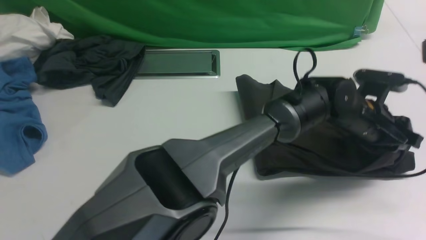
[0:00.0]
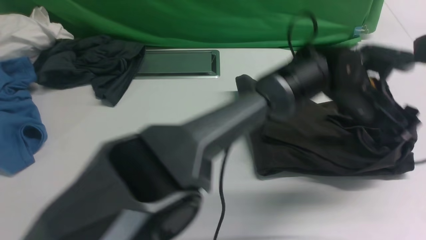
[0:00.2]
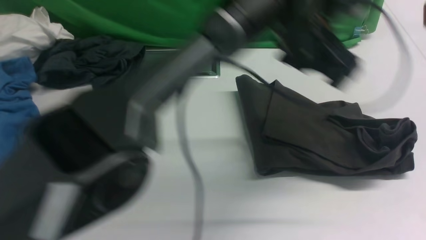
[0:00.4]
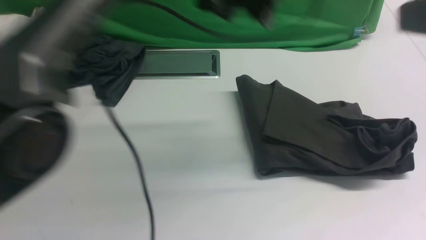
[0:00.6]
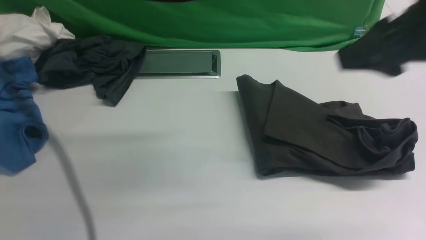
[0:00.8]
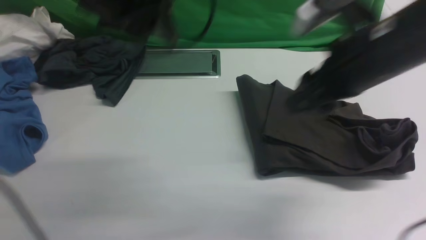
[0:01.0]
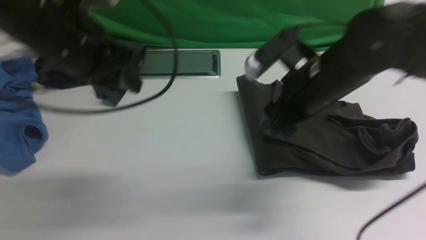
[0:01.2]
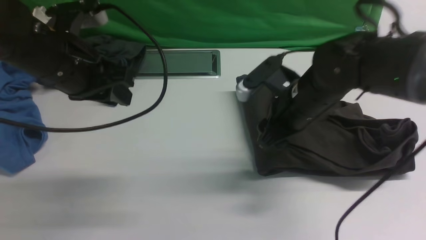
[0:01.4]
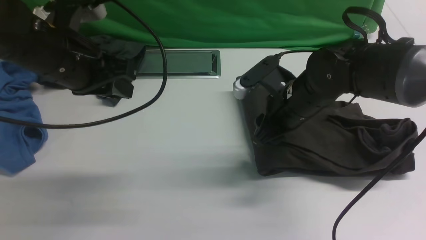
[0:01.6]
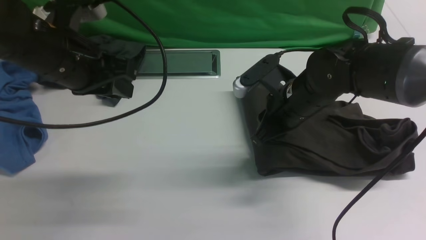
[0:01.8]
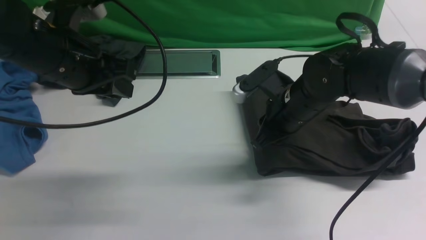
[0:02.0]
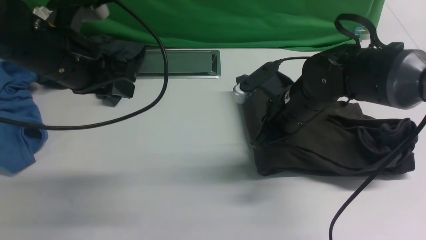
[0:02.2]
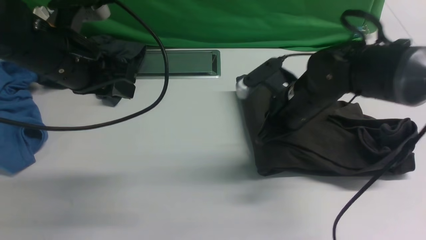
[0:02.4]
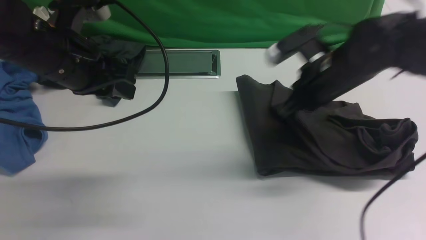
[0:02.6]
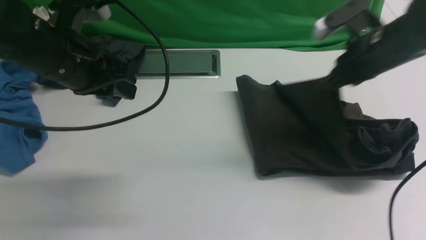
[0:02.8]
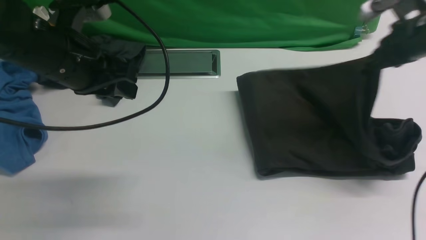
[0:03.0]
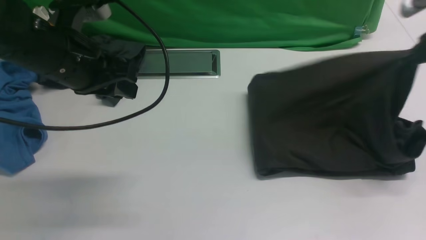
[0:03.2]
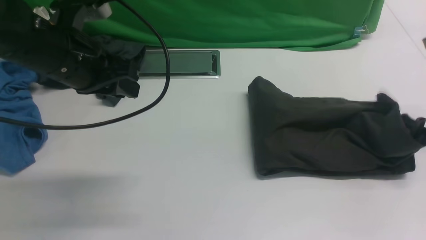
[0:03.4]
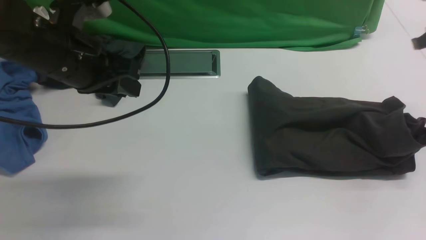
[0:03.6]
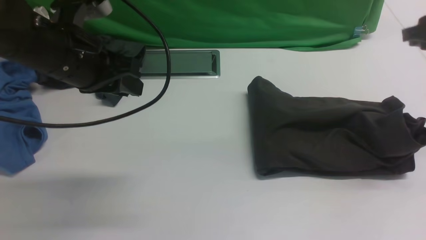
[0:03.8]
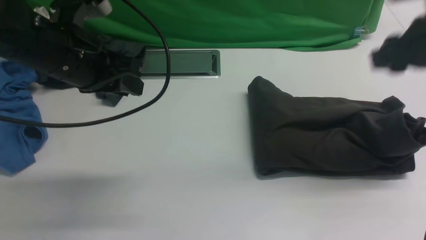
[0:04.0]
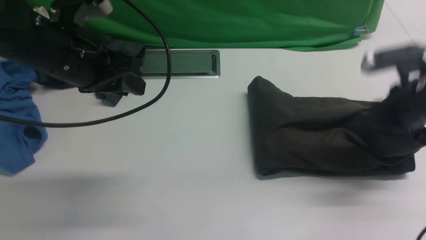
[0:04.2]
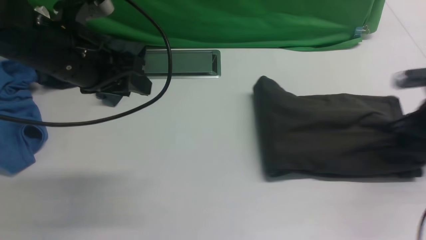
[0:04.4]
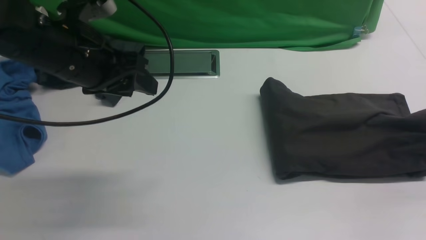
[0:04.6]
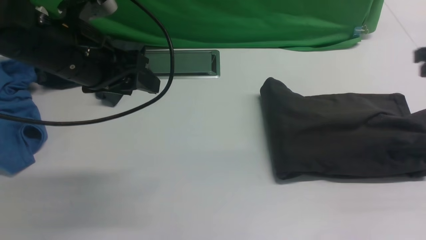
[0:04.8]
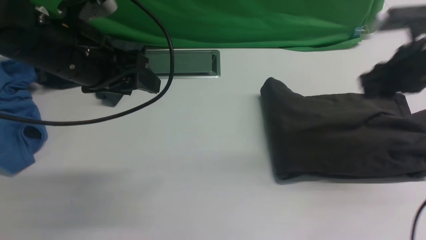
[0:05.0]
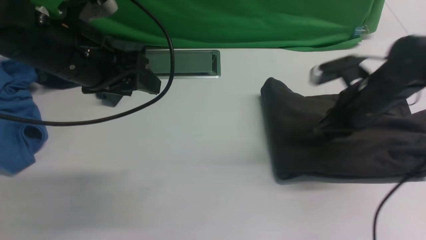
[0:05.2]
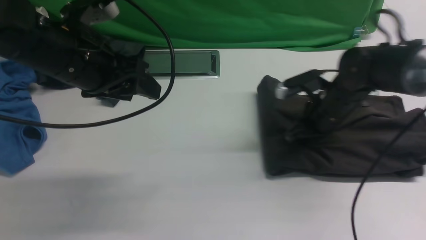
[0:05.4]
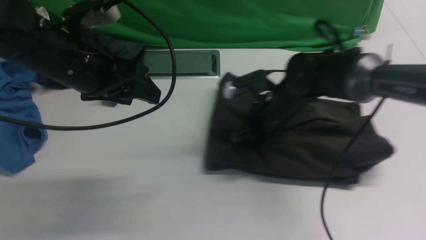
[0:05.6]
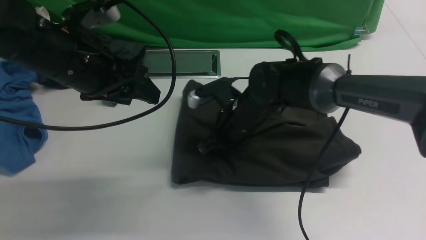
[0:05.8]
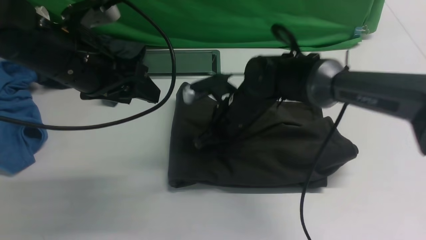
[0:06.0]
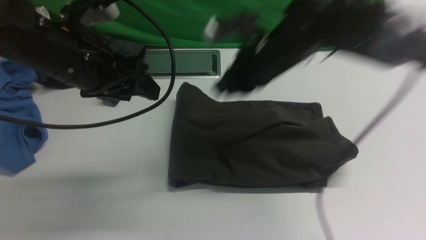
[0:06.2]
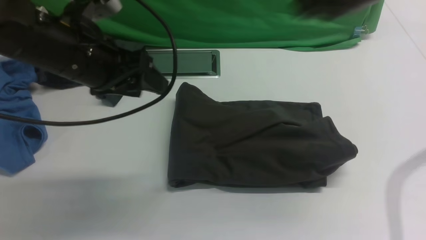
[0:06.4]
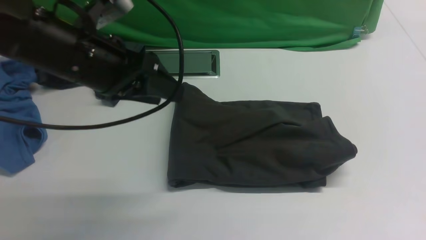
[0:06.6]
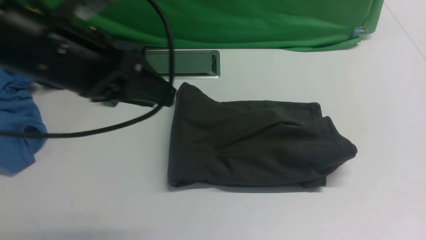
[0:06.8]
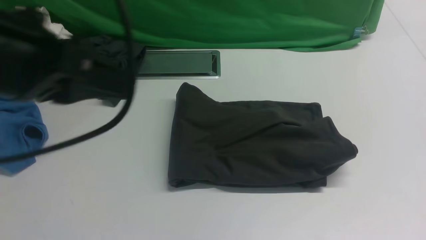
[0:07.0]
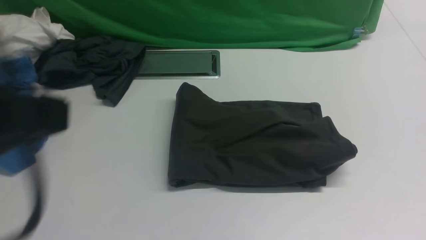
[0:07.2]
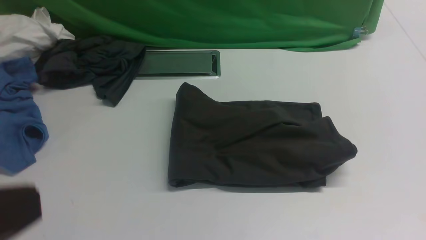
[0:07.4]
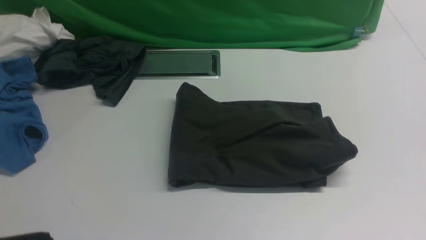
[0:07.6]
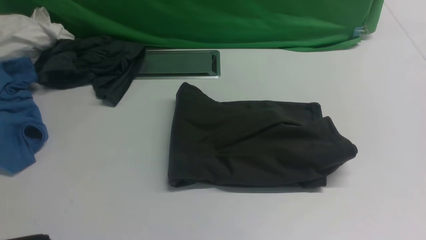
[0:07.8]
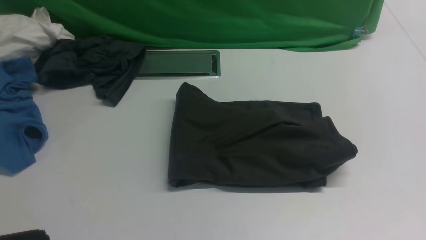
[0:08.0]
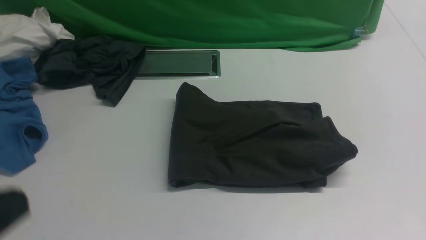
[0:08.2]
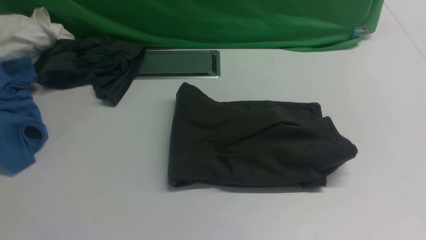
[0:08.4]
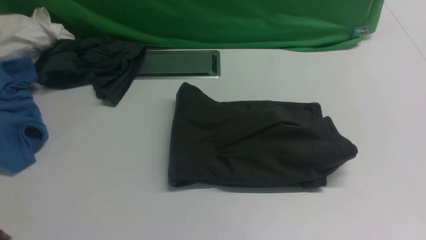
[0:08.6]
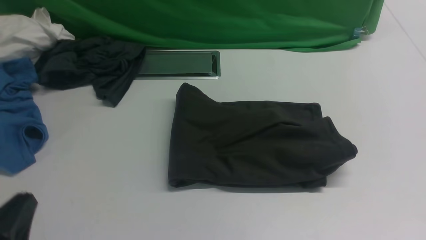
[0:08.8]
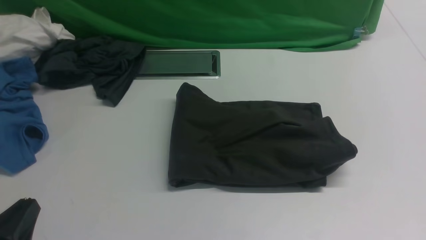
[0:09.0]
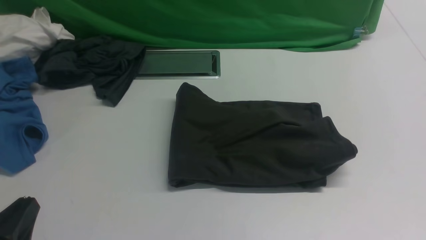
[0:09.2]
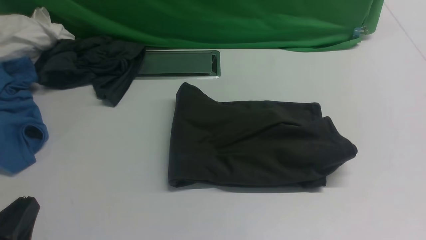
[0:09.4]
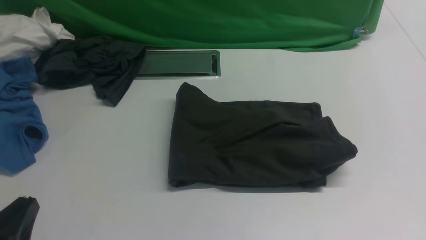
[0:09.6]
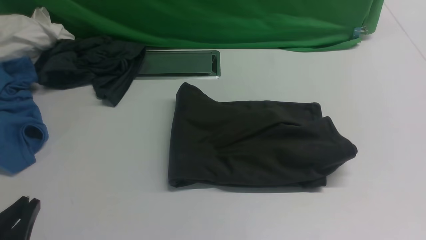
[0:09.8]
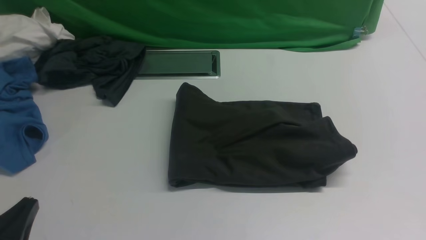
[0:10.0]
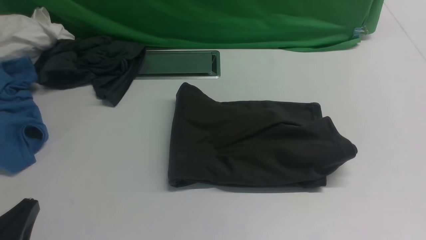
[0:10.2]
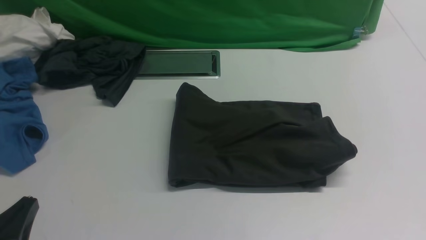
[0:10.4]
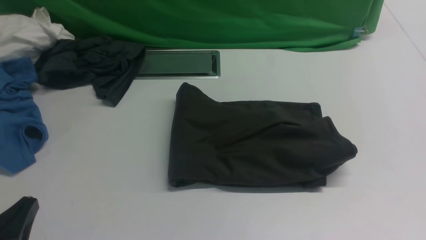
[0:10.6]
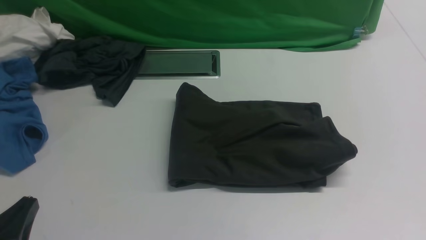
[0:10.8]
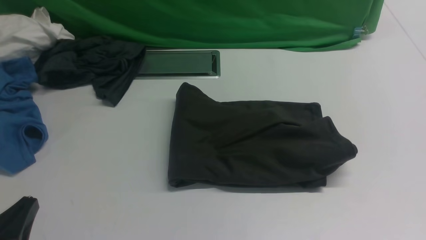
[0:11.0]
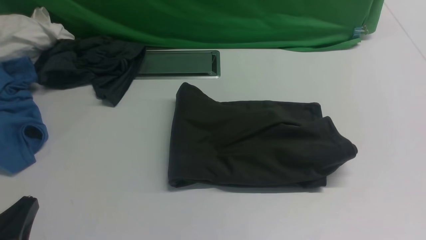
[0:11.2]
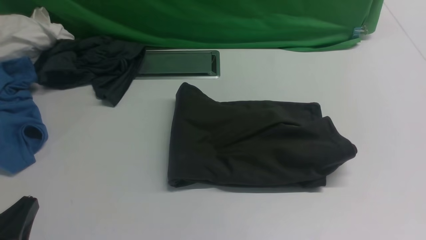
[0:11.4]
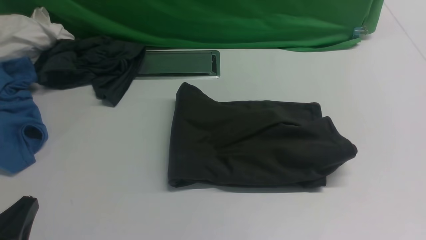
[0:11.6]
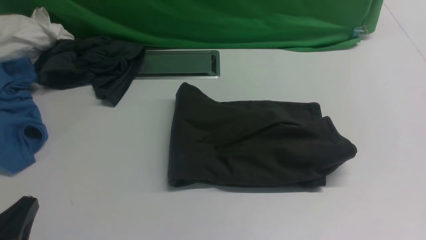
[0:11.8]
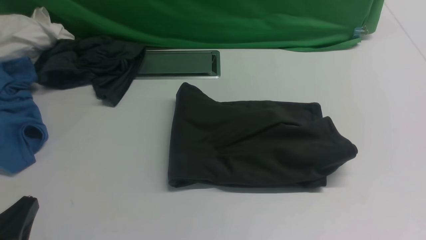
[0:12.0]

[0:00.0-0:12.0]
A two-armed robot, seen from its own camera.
0:00.0 to 0:01.6: The right gripper moves downward, forward and to the left, some 30 cm, and opens its fingers; the left gripper moves to the left, roughly 40 cm, and opens, then closes again.
0:01.6 to 0:03.0: The right gripper travels to the right by approximately 20 cm, and closes.
0:03.0 to 0:04.4: The right gripper swings left and right, approximately 10 cm each way, with 2 reversals, and opens its fingers.
0:04.4 to 0:06.0: The right gripper travels to the left by some 30 cm, and closes up.
0:06.0 to 0:07.6: The right gripper shifts roughly 40 cm backward and to the right, while the left gripper shifts approximately 30 cm backward, and closes.
0:07.6 to 0:09.0: The left gripper shifts some 20 cm downward.

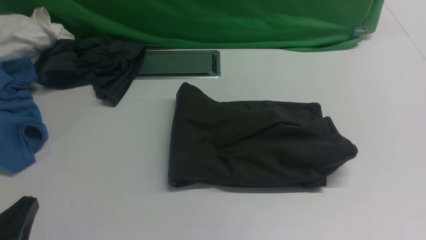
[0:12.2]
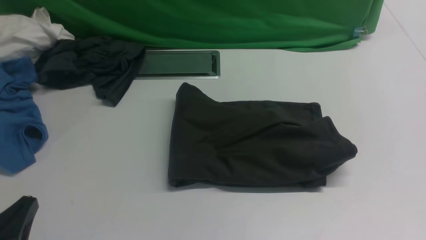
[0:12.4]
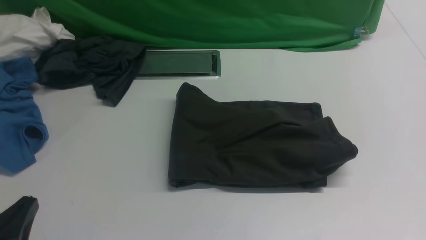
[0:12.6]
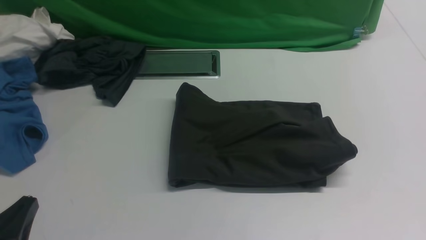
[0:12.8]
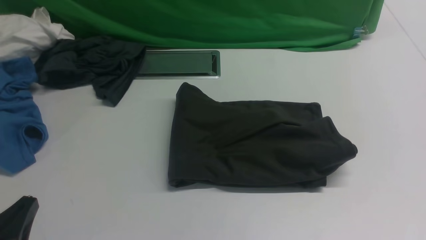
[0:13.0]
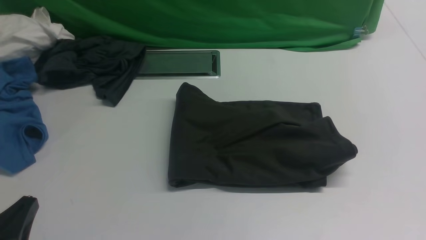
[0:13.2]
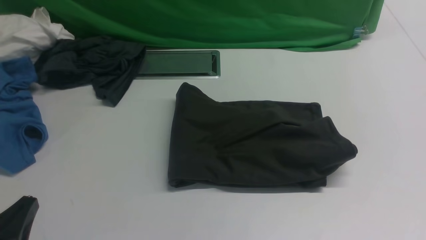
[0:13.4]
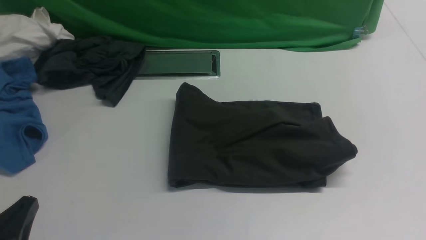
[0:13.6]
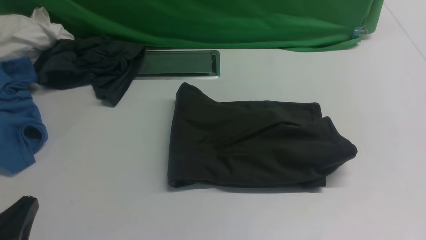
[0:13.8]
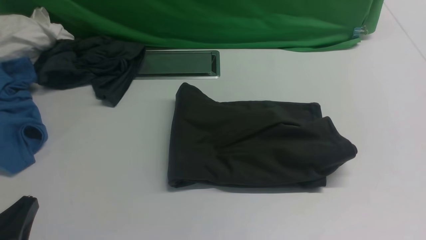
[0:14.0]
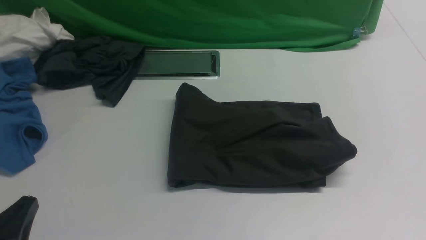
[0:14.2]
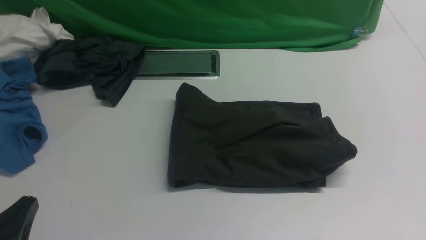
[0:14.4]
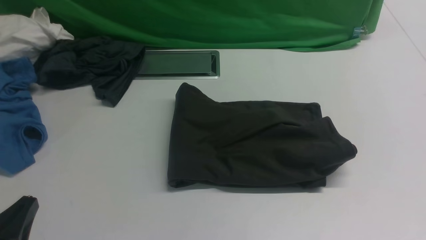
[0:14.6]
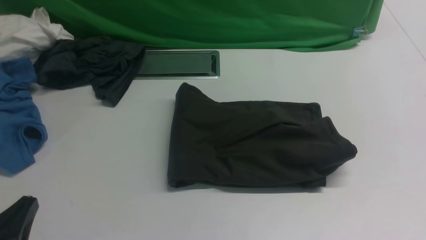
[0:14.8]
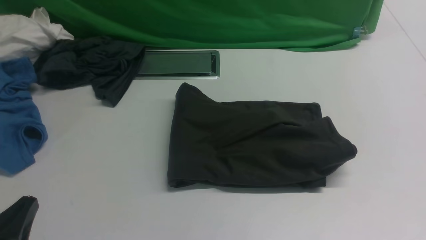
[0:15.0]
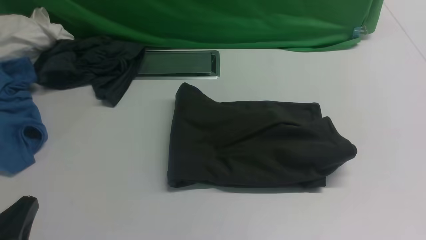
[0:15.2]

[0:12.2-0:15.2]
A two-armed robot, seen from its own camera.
0:13.8 to 0:15.2: Both grippers stay about where they are.
